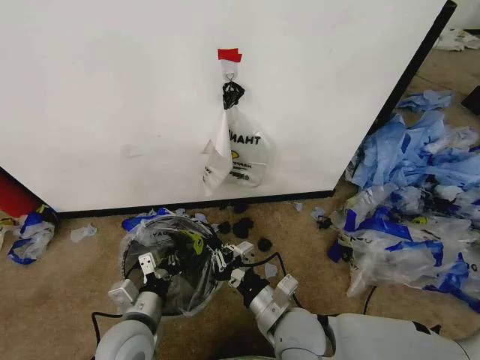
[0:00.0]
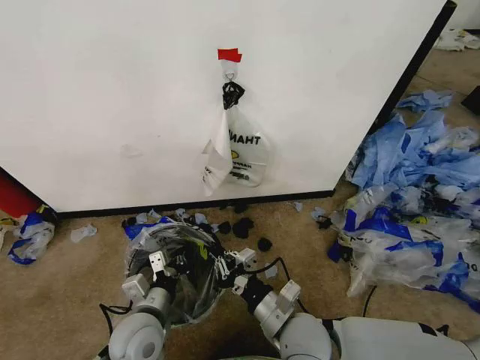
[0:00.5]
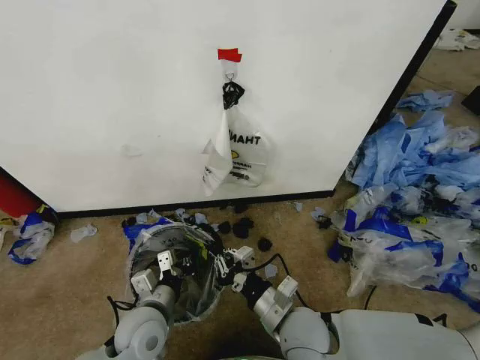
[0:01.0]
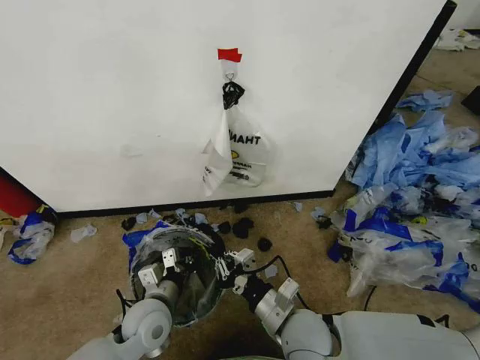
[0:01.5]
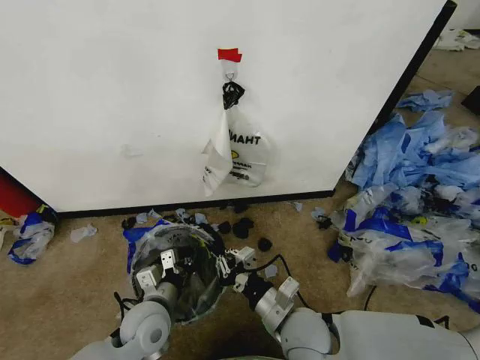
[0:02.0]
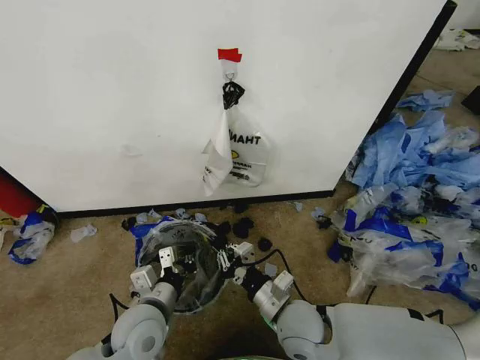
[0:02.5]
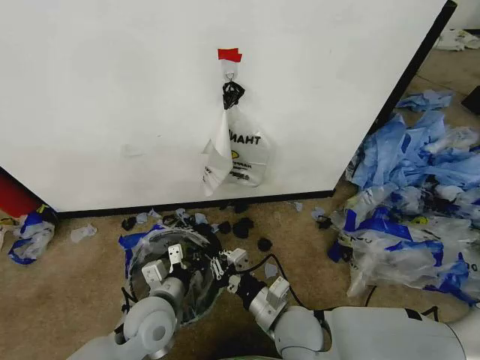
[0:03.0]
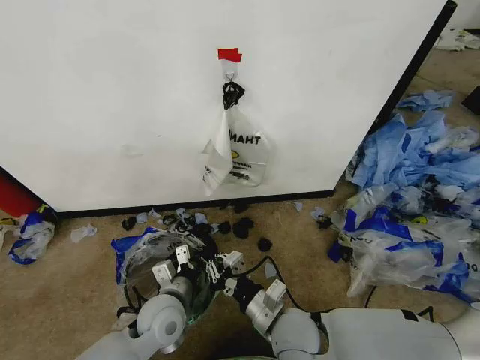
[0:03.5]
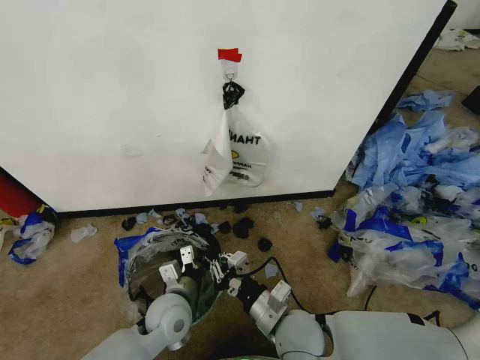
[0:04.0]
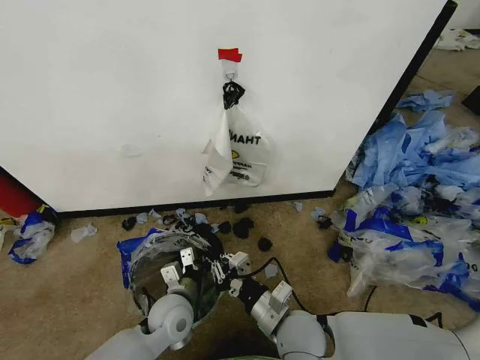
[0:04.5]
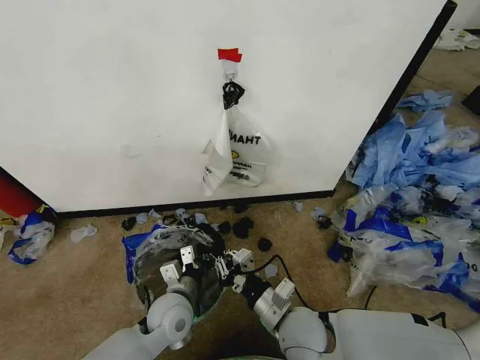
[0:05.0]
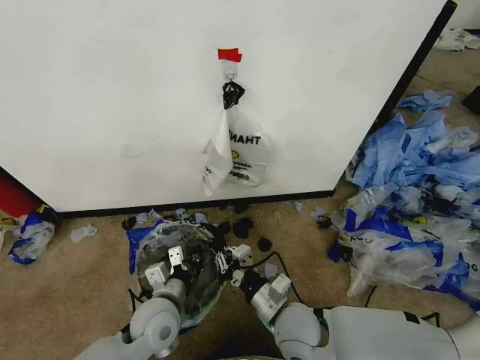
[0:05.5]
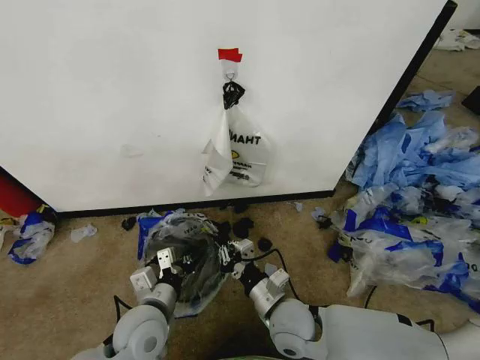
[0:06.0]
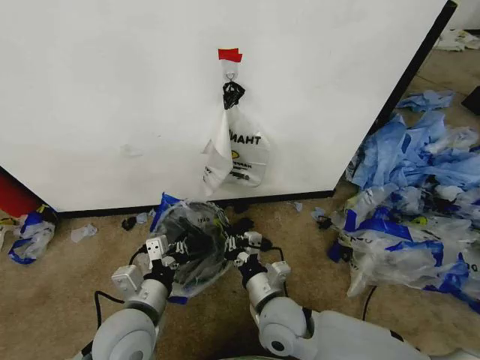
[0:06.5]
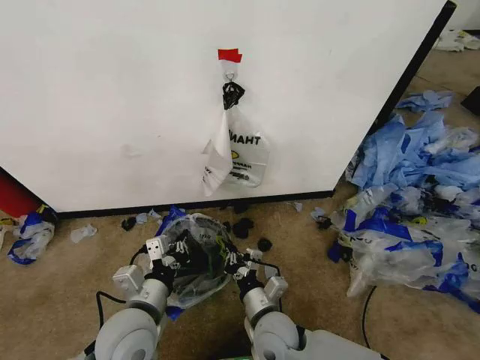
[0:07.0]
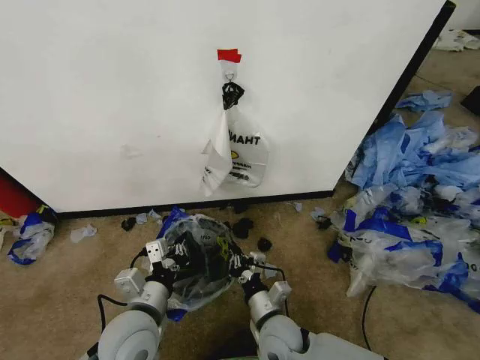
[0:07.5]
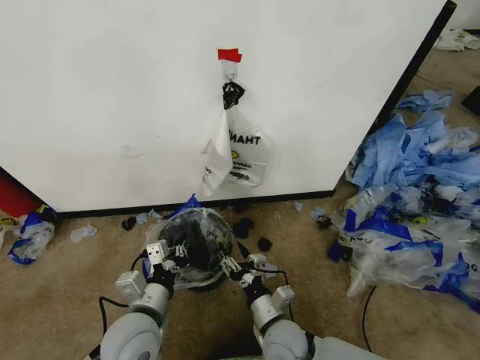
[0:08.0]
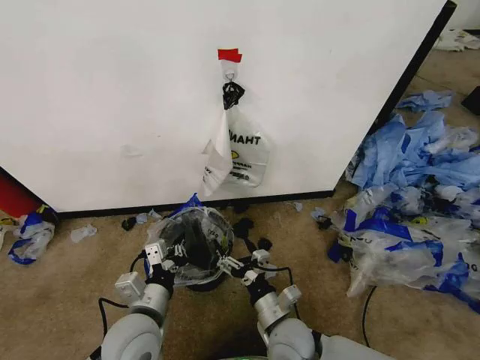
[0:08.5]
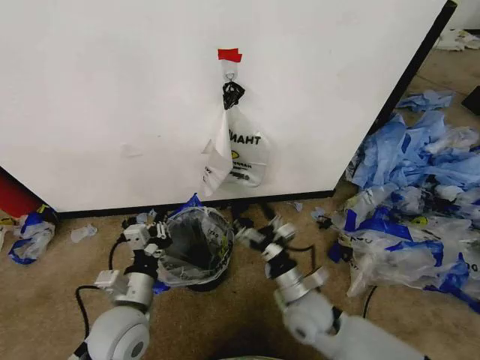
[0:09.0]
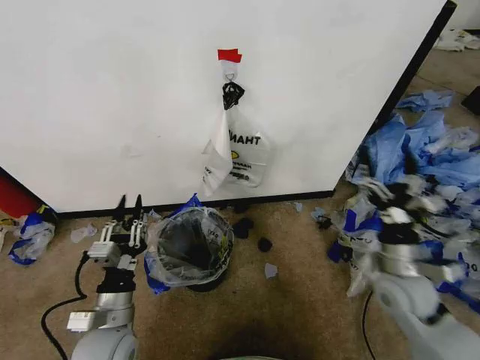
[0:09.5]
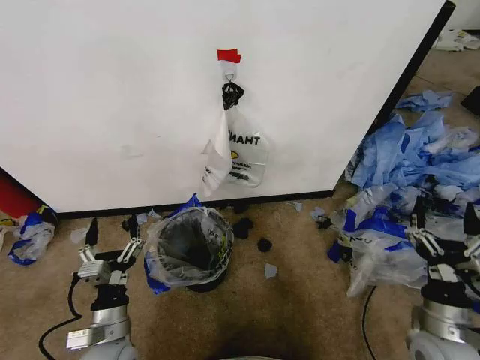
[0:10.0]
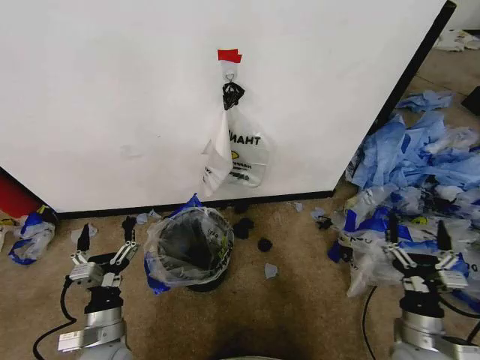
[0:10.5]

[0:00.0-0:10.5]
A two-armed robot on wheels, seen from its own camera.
Task of the whole recording: Pick up the garbage bag from the wall and place it over the trash bin.
0:00.0 to 0:02.0: The left gripper ends up some 5 cm from where it was.
0:02.0 to 0:04.0: There are only small adjustments of the grippers.
0:04.0 to 0:06.5: The left gripper is displaced upward and backward by roughly 10 cm.
0:06.5 to 0:08.5: The right gripper is displaced downward by some 5 cm, and opens its fingers.
0:08.5 to 0:10.5: The right gripper moves to the right, roughly 25 cm; the left gripper heads to the left and downward, covering approximately 10 cm, and opens.

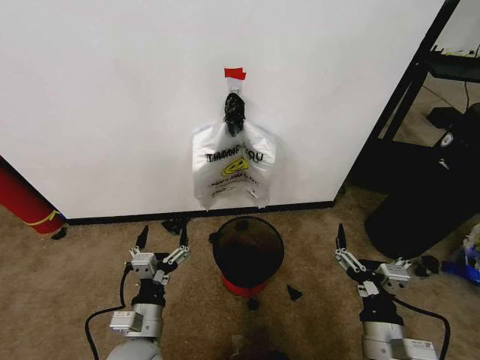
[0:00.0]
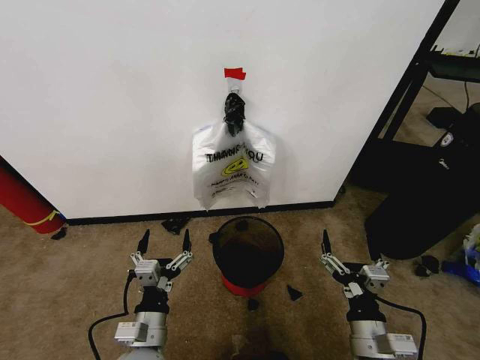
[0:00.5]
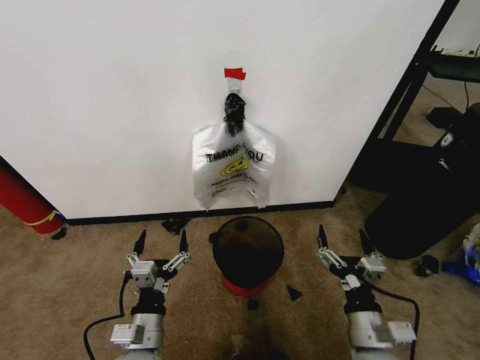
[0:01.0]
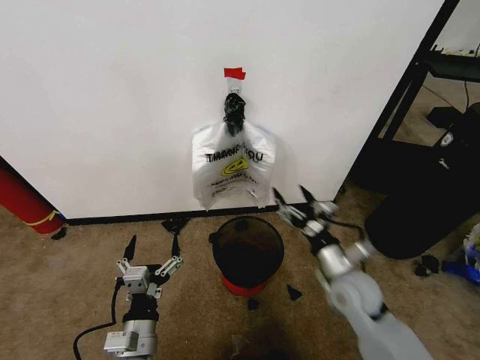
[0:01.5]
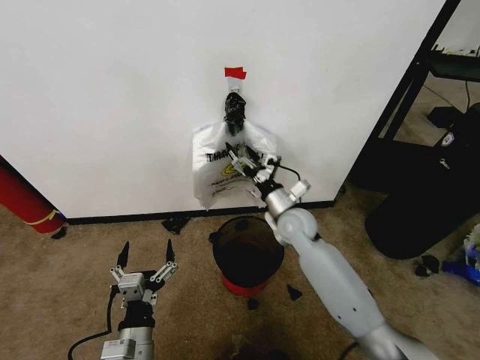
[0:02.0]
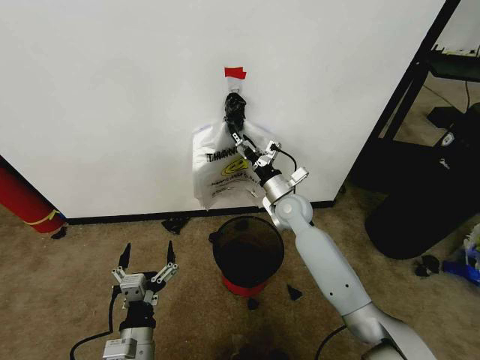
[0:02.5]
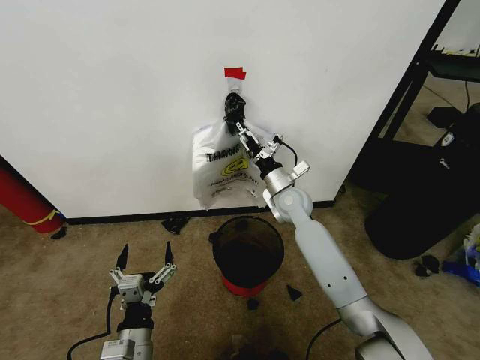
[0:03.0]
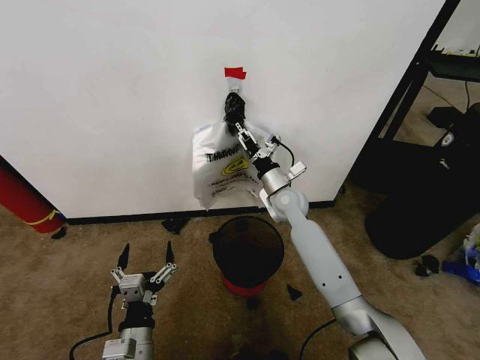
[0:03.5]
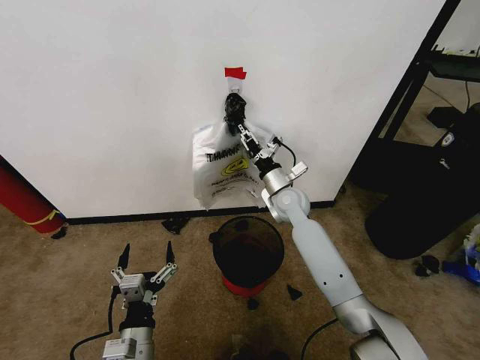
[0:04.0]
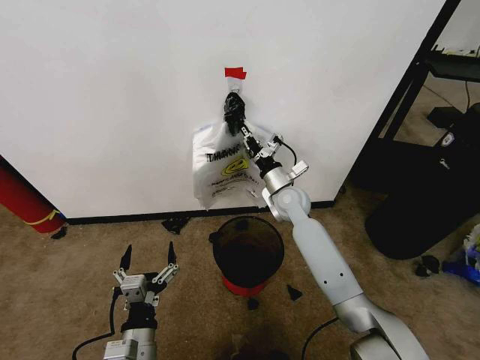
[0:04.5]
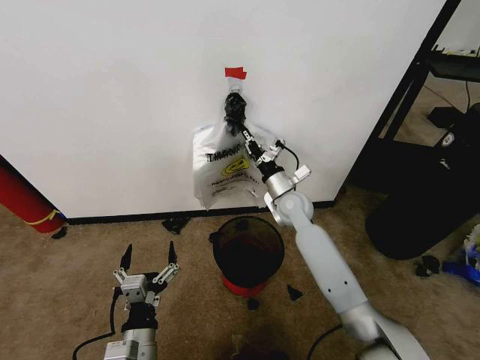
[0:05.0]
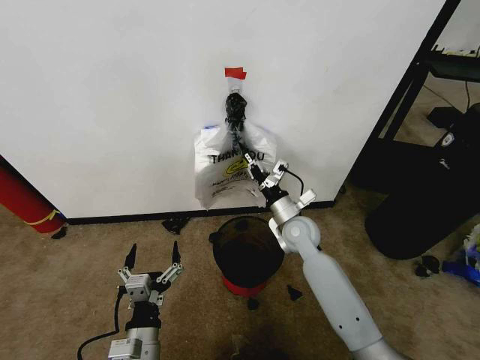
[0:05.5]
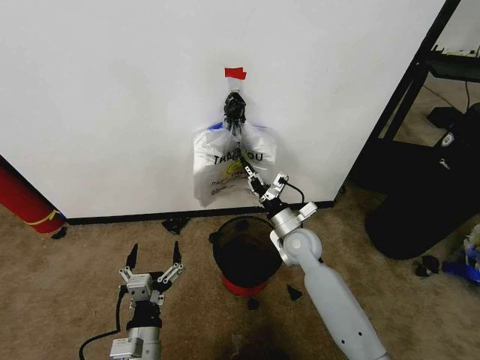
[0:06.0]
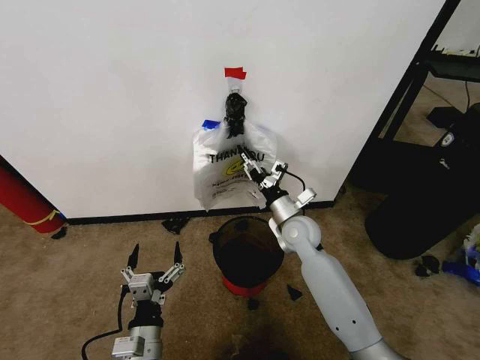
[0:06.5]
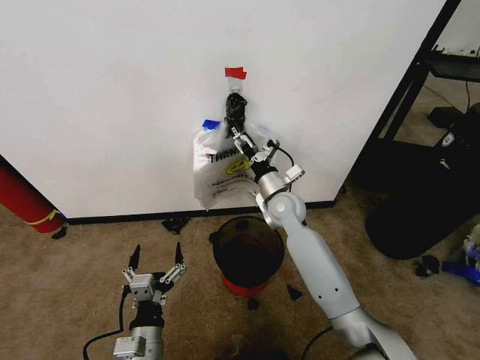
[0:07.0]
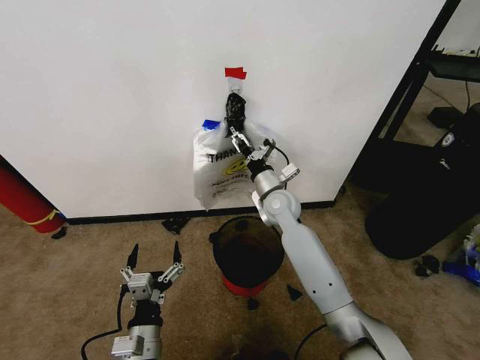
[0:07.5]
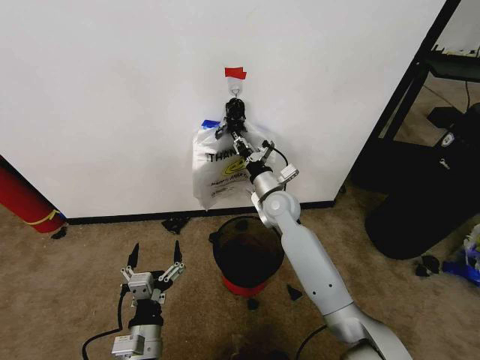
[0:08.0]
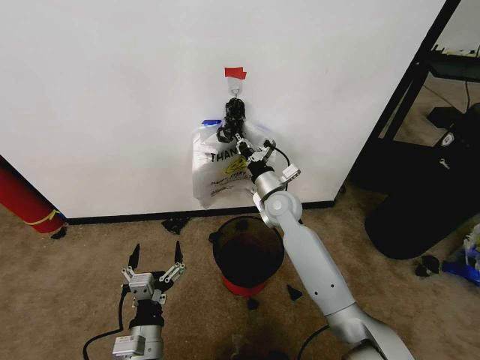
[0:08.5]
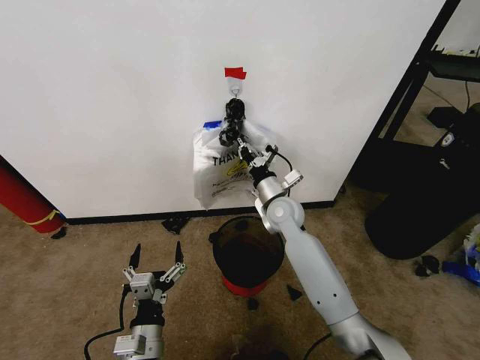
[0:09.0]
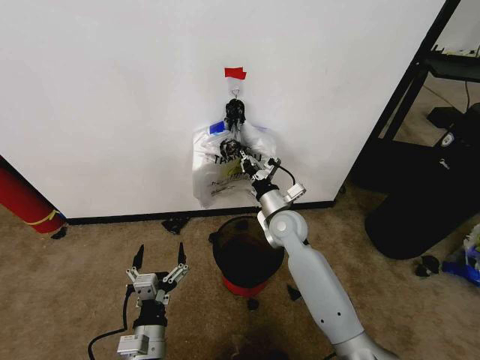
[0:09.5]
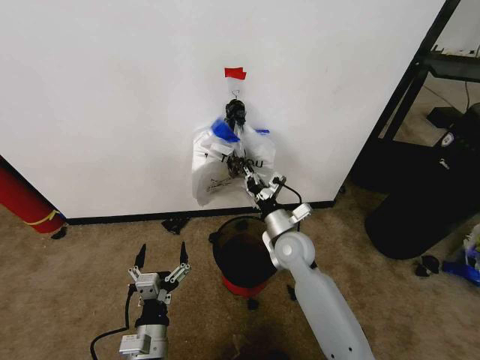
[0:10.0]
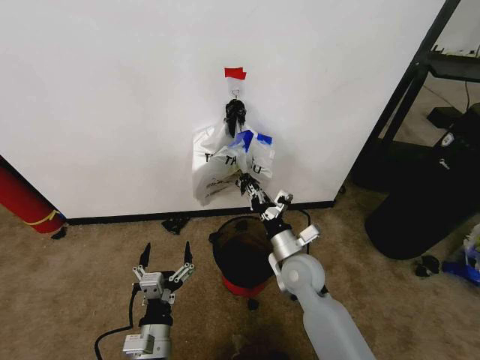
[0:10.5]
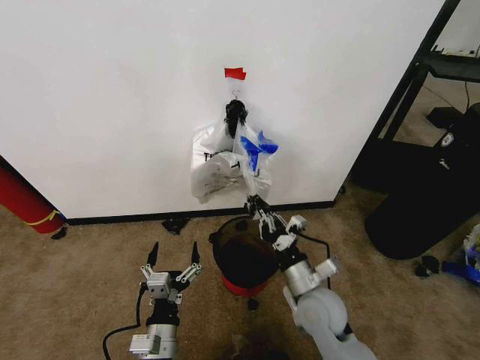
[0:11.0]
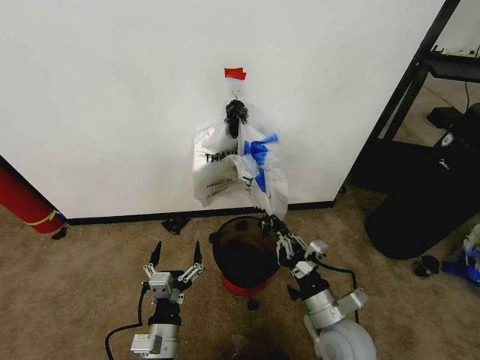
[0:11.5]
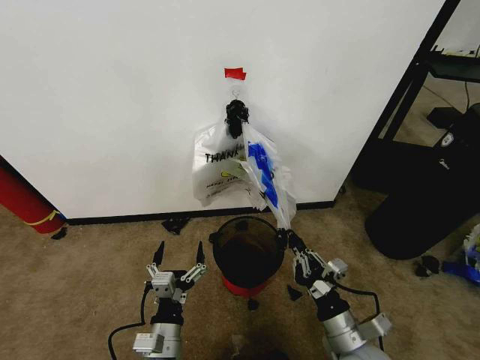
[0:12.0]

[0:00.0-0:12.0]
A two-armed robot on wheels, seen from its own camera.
Task of the whole recording: Pick up the garbage bag from the wall and place it over the trash bin.
0:02.0 to 0:04.0: The right gripper heads forward, covering roughly 5 cm, and closes its fingers.
0:04.0 to 0:06.0: The right gripper shifts approximately 10 cm backward and downward, and closes.
0:06.0 to 0:08.0: The right gripper moves forward, upward and to the left, roughly 10 cm, and opens, then closes again.
0:08.0 to 0:10.0: The right gripper shifts some 10 cm backward.
0:10.0 to 0:12.0: The right gripper heads backward and to the right, covering roughly 25 cm.

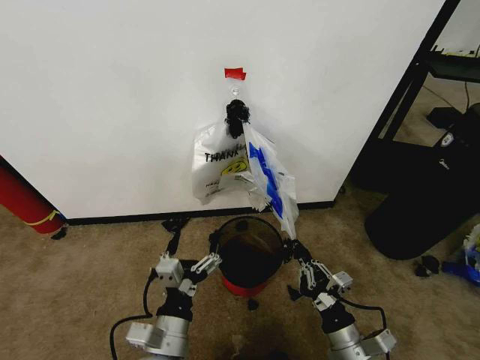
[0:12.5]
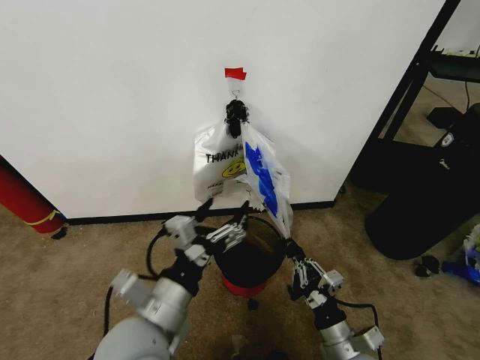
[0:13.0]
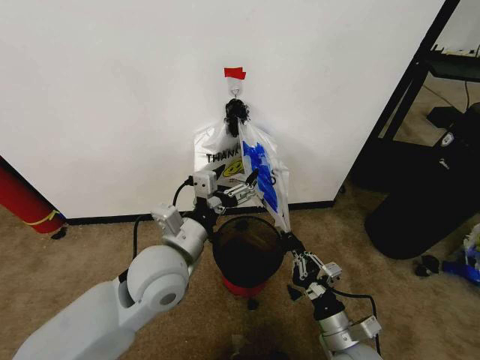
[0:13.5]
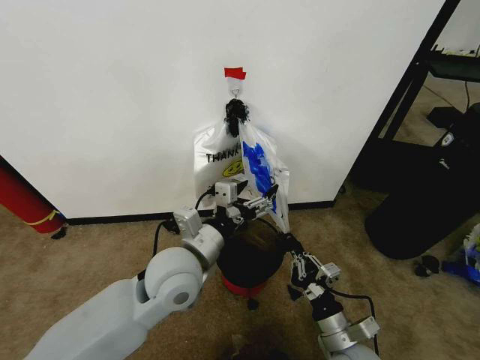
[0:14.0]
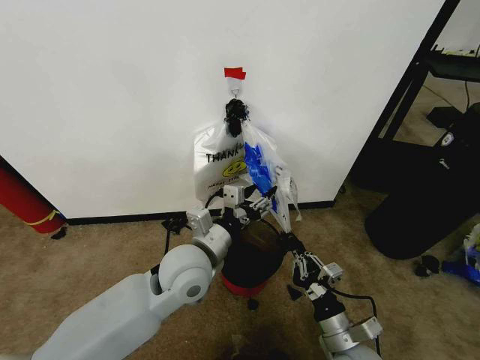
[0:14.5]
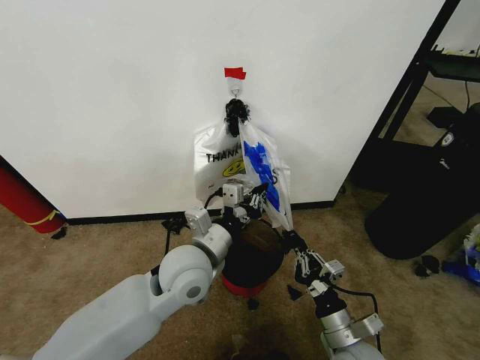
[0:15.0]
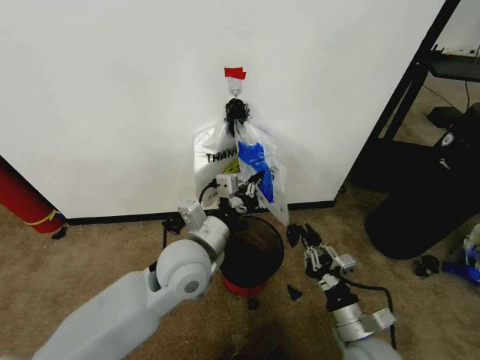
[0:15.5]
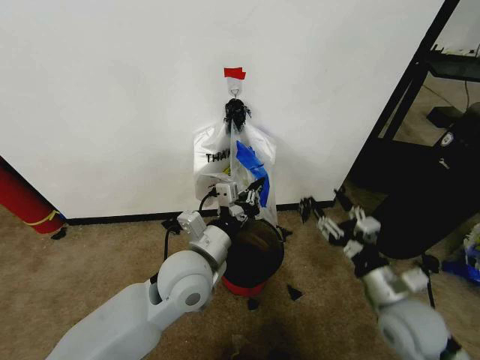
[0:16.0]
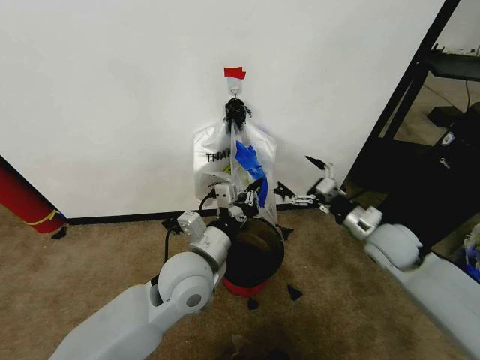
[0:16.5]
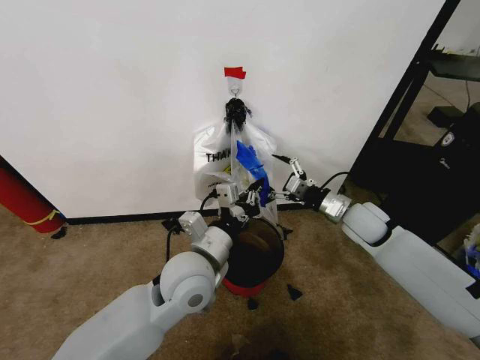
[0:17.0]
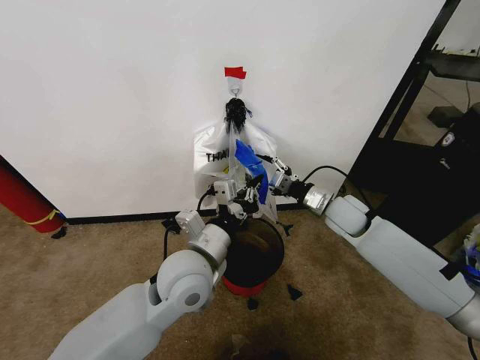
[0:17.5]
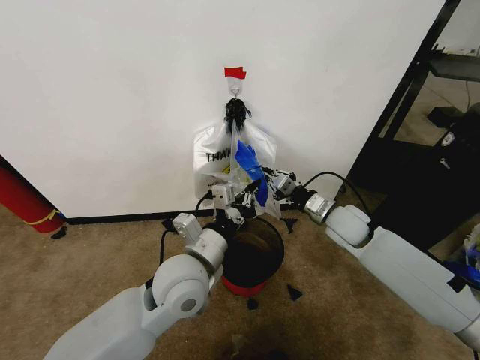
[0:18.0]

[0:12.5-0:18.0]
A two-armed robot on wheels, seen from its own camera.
Task of the whole recording: Pick up the garbage bag from the wall and place it over the trash bin.
0:12.5 to 0:14.5: The left gripper shifts some 20 cm forward and upward, and closes up.
0:14.5 to 0:16.0: The left gripper closes its fingers. Meanwhile the right gripper heads upward, to the right and forward, covering some 15 cm, and opens up.
0:16.0 to 0:18.0: The right gripper travels forward by approximately 20 cm, and closes its fingers.
